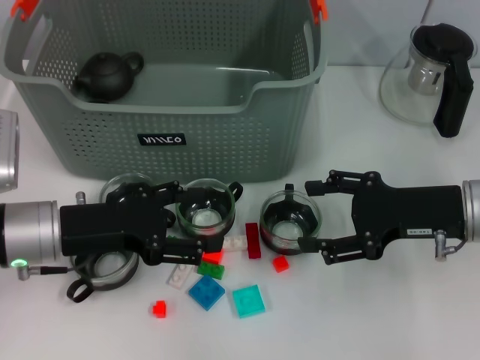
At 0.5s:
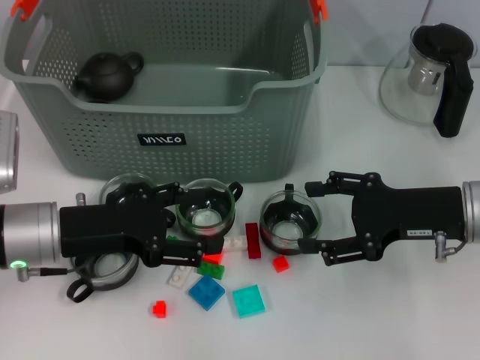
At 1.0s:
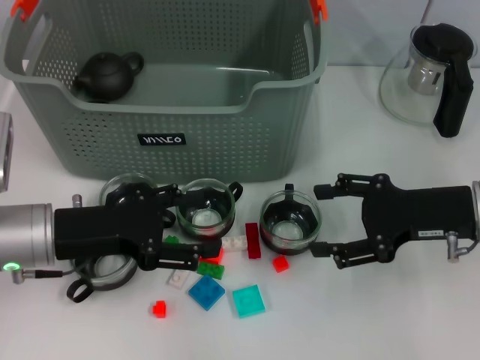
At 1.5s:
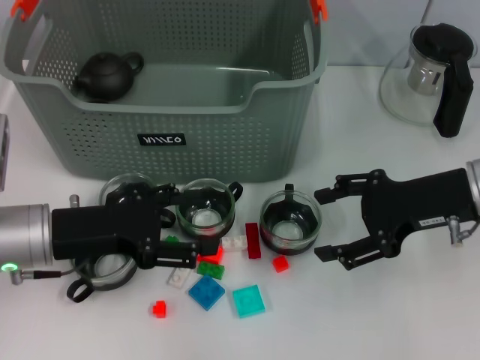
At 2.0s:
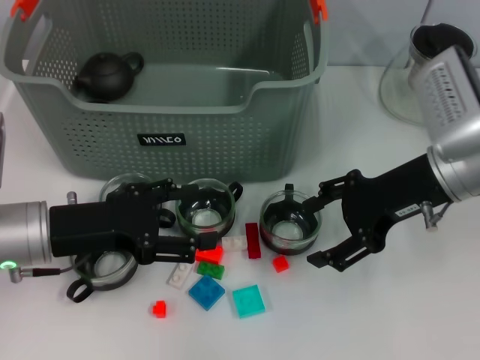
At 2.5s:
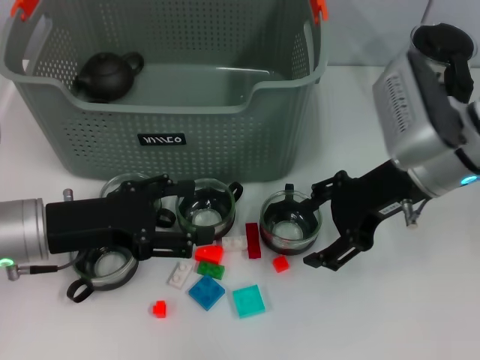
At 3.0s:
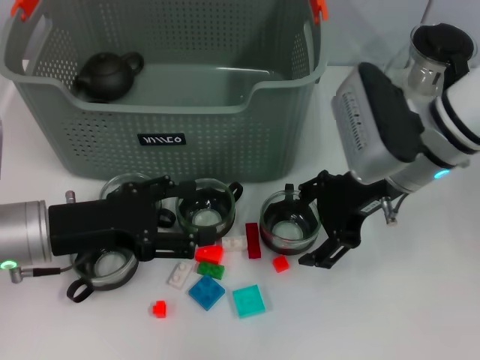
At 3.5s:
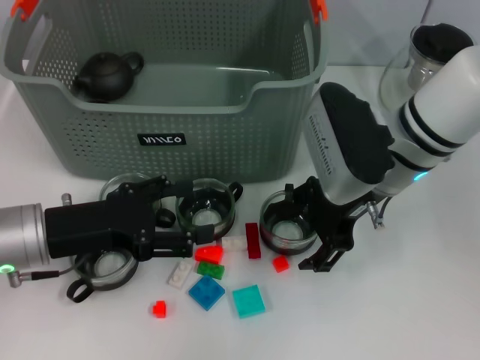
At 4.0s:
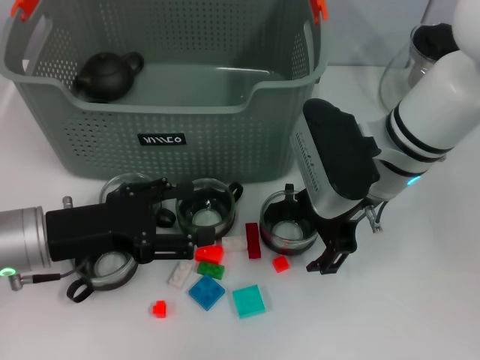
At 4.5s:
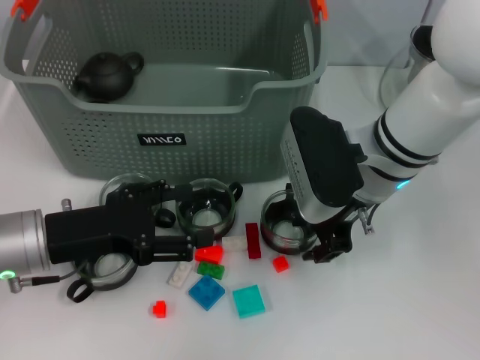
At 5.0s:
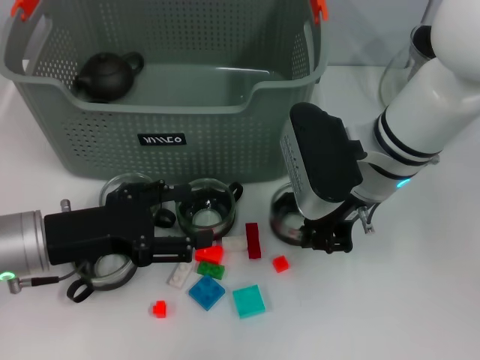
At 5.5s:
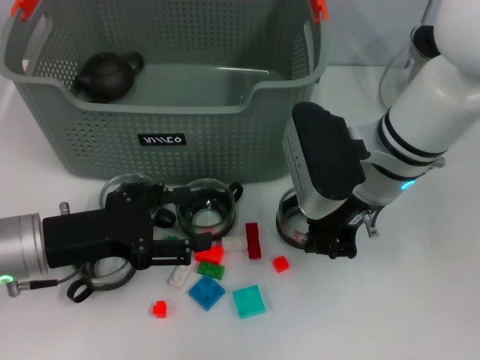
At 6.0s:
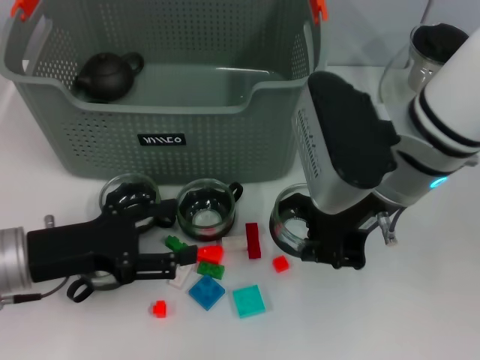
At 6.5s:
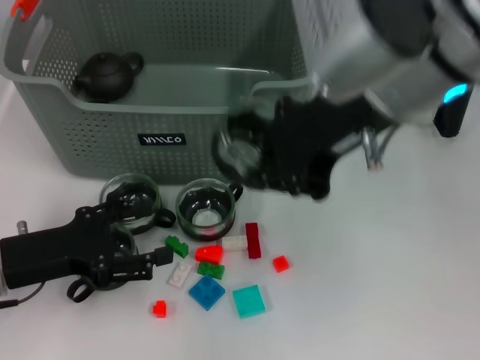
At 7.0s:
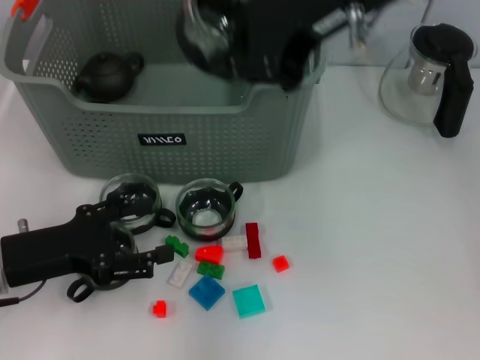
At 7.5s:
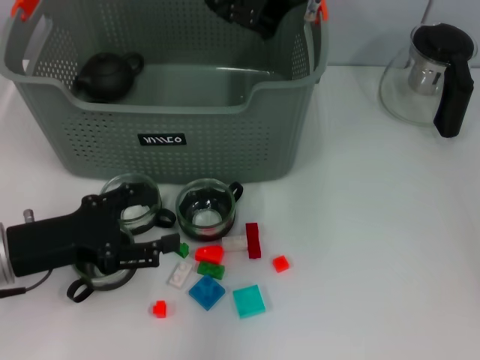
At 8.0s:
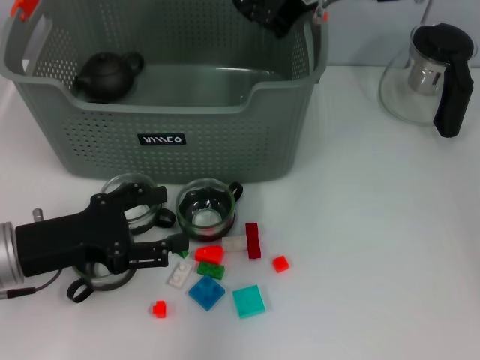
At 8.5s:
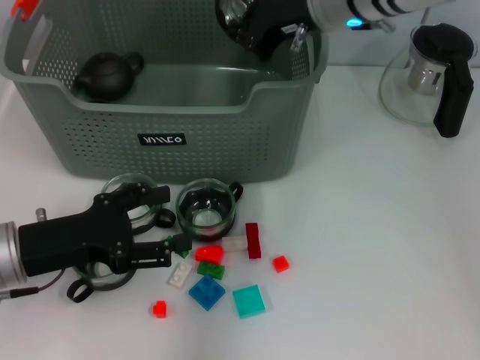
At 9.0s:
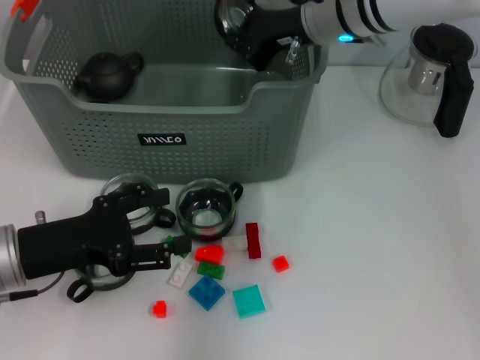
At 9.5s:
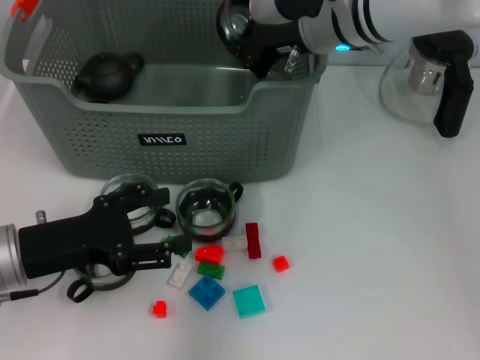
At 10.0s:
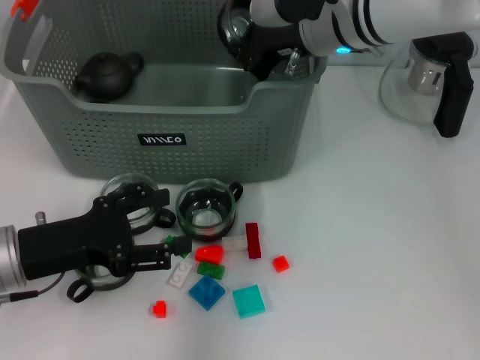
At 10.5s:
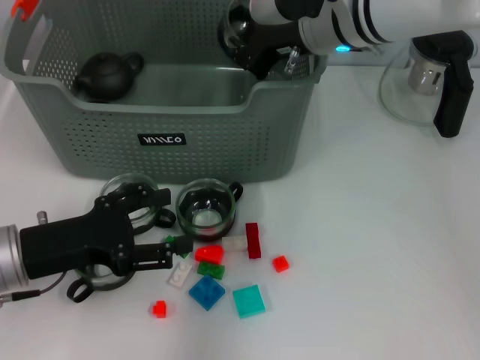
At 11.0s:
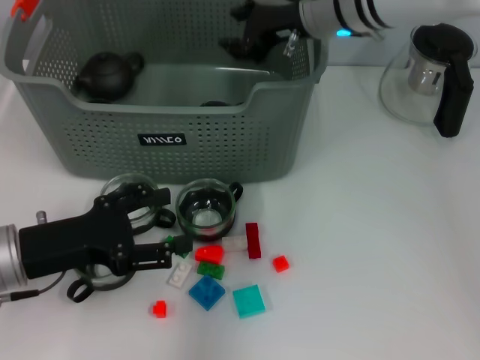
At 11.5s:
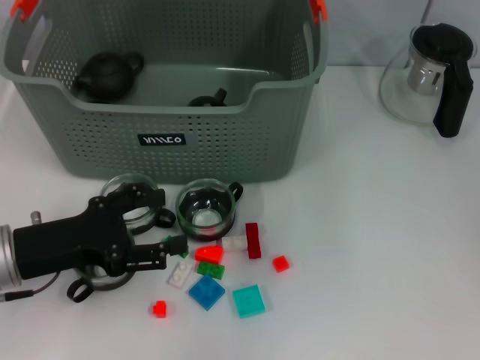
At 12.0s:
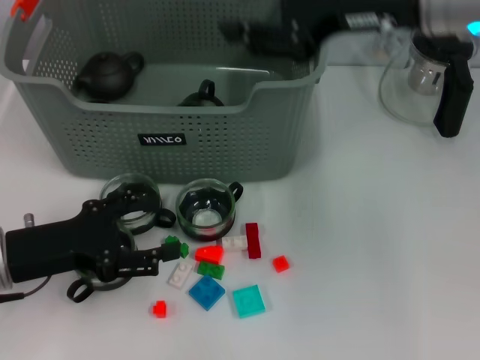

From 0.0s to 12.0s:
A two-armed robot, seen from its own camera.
Task of the whole recording: pick up the teacup on the table and place it into the storage bin, pick up the block on the table and place it into the storage bin.
Step, from 0.0s to 5.0s: Grasp the cup with right gripper.
Step, from 5.5s to 10.5s: Place the cup in the storage box with right gripper.
From 0.0s to 2.0s: The right gripper moves roughly 5 cm.
From 2.0s to 4.0s: The right gripper heads to the left, covering some 10 cm.
From 4.0s to 6.0s: The right gripper goes some 5 cm upward, and closes up.
From 6.0s to 8.0s: The right gripper goes about 15 cm forward and upward.
From 8.0s to 10.0s: The right gripper travels downward by some 5 cm.
From 10.0s to 12.0s: The right gripper moves backward, upward and to the right, some 15 cm, and opens.

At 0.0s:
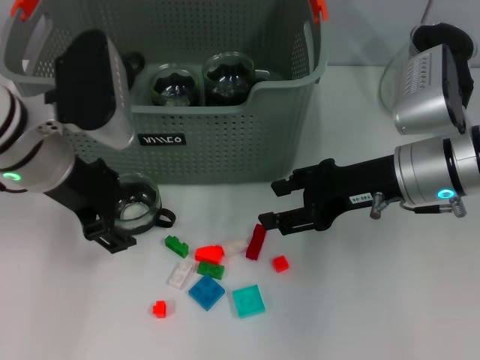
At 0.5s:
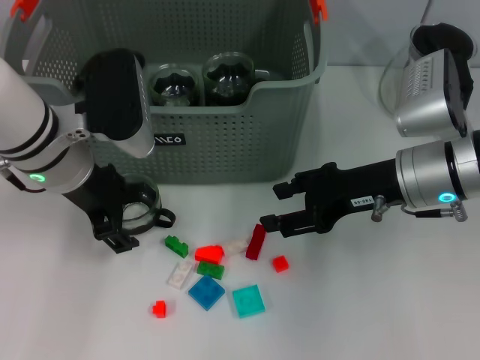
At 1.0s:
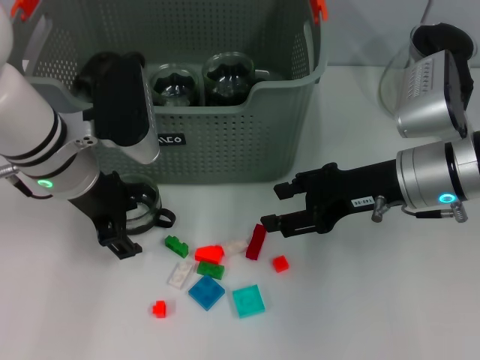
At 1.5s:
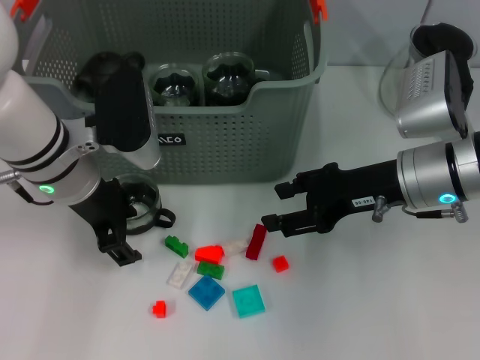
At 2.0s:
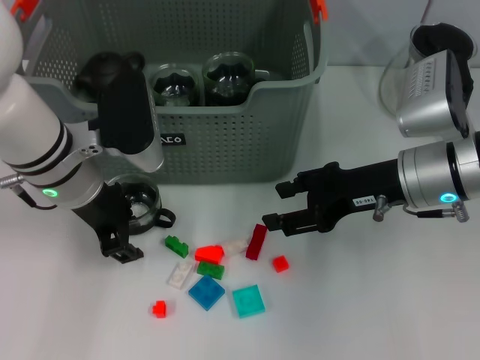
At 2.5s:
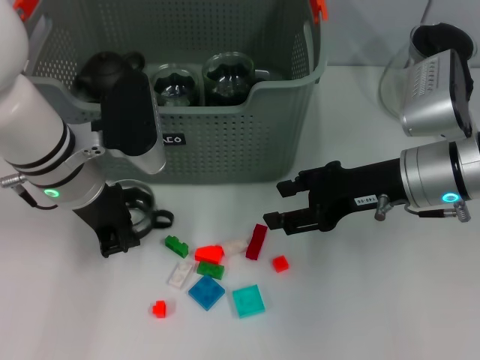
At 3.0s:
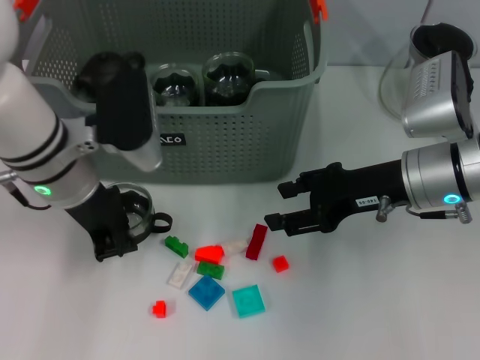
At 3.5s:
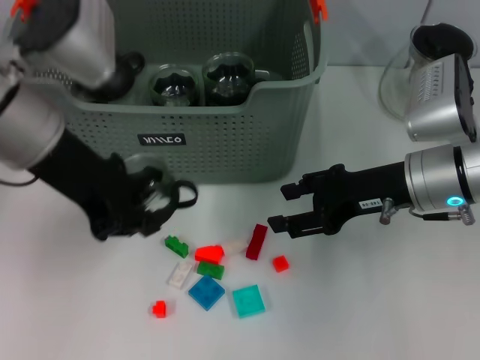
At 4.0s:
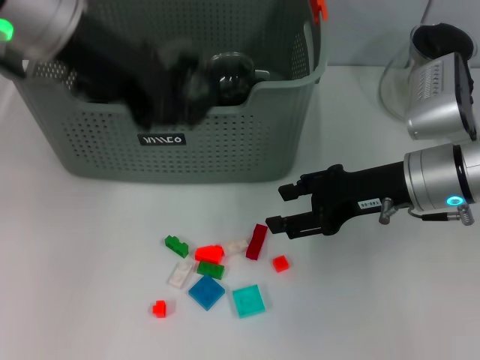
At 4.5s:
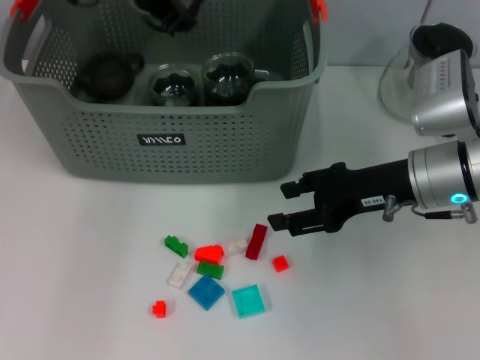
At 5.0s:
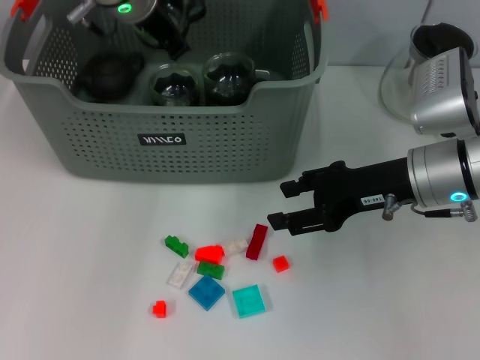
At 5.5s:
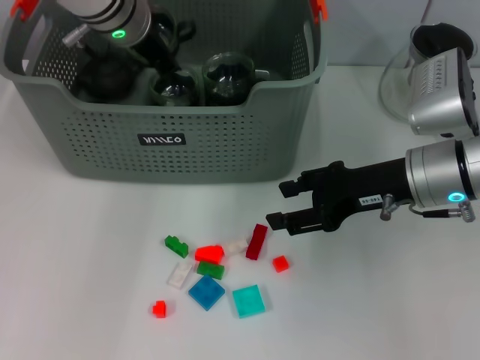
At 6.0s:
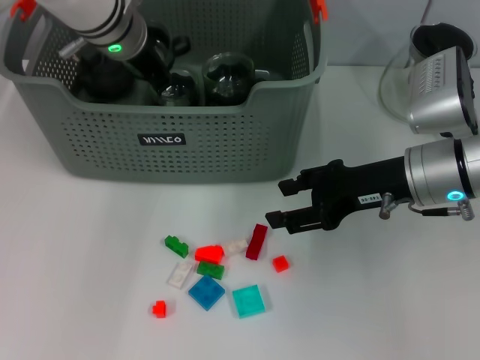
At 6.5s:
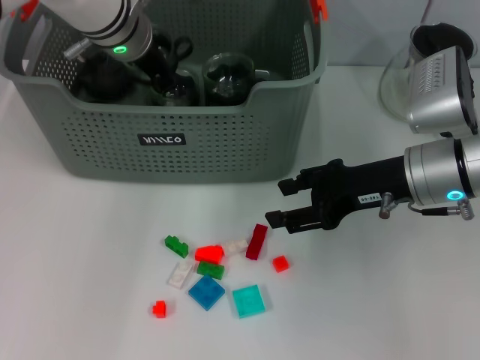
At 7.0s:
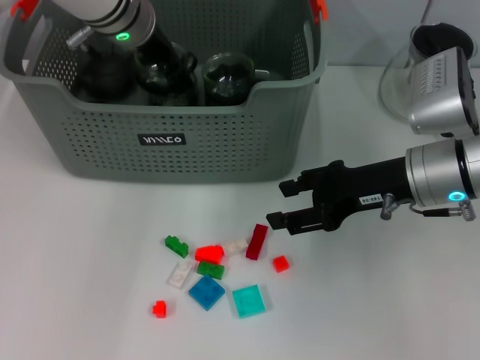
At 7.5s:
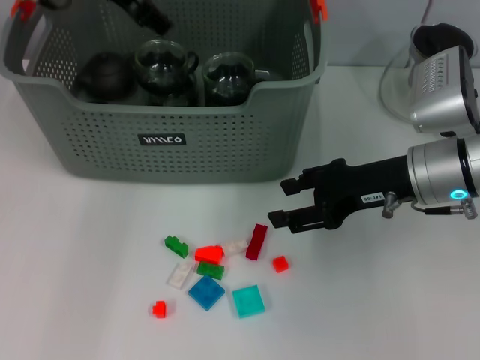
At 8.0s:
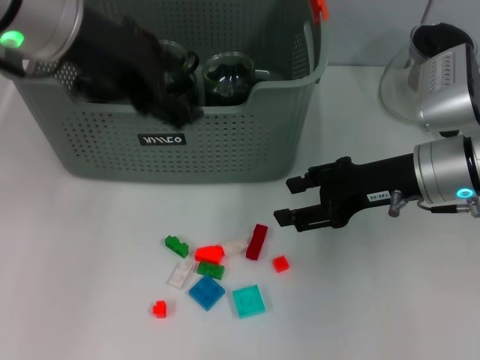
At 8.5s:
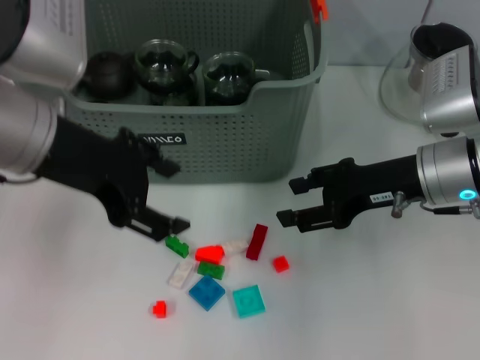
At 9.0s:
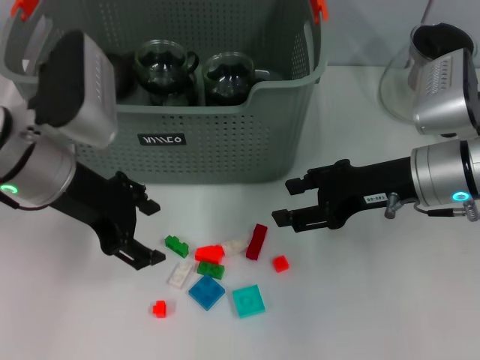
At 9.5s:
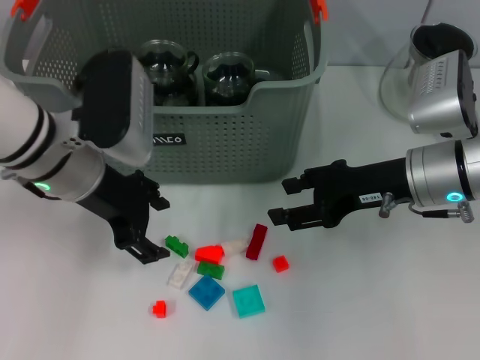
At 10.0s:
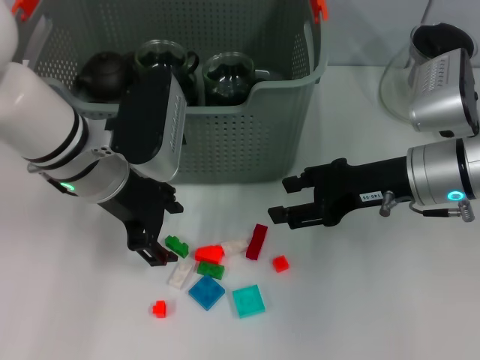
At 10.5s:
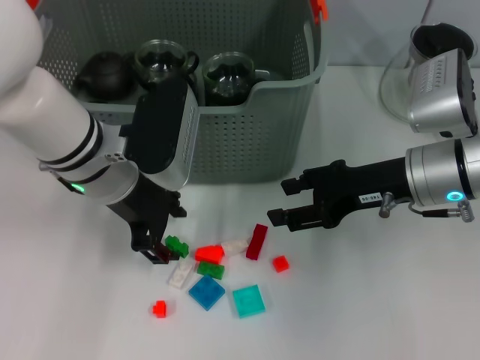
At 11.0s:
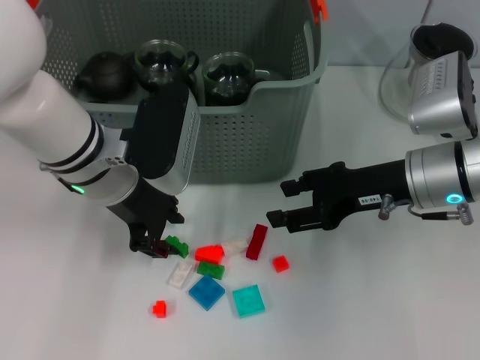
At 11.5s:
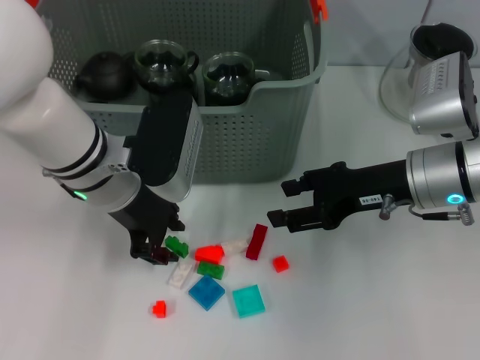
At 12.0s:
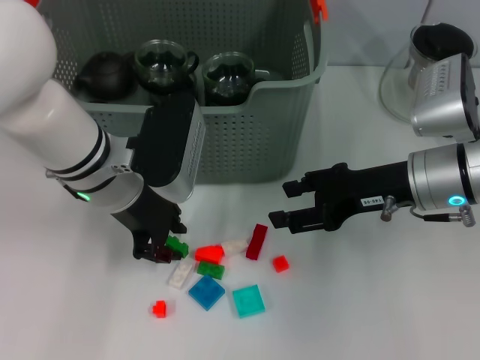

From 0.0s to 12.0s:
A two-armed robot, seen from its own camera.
Task of the whole recording: pick up the teacup on the table and place it into the storage bin, pick up the block on the table and place it into the storage bin.
Step, from 0.0s to 2.5s: Grasp the cup with left gripper.
Step, from 3.0s to 7.0s: Place the cup in the storage box with left gripper.
From 0.0s to 2.0s: The left gripper changes place by some 5 cm.
From 2.0s to 4.0s: The left gripper heads upward, covering some 15 cm, and closes its fingers.
From 4.0s to 6.0s: The left gripper moves forward and downward, some 15 cm.
From 6.0s to 8.0s: The left gripper travels backward and upward by about 15 cm, and opens.
From 8.0s to 10.0s: The left gripper moves downward, about 15 cm.
From 10.0s to 12.0s: The left gripper closes up.

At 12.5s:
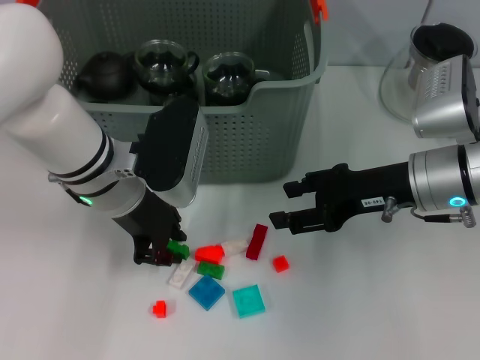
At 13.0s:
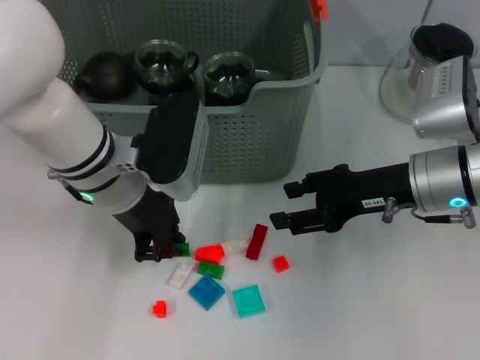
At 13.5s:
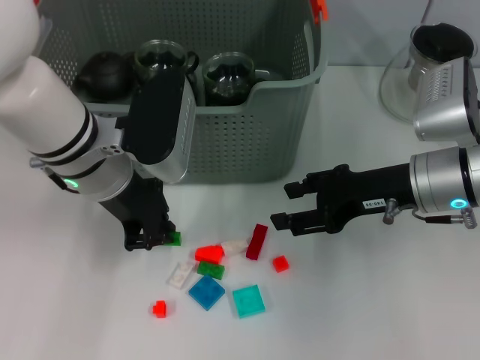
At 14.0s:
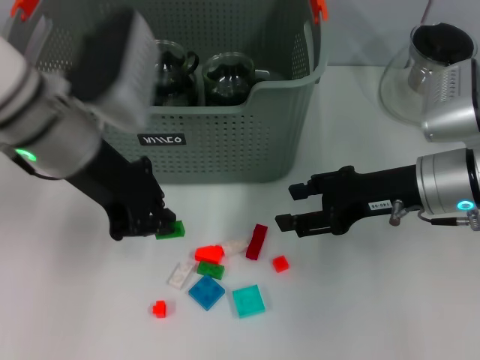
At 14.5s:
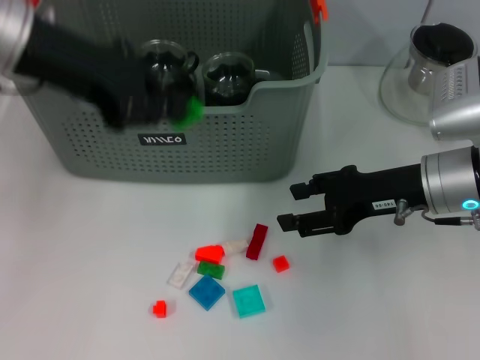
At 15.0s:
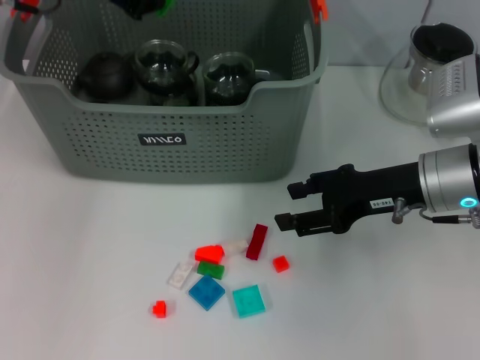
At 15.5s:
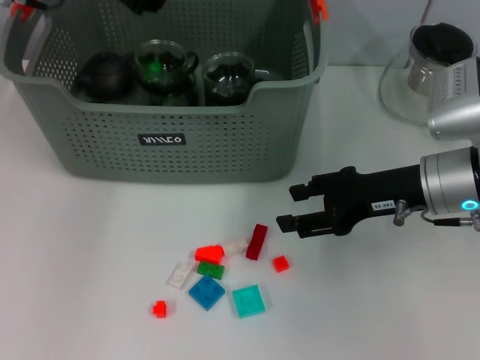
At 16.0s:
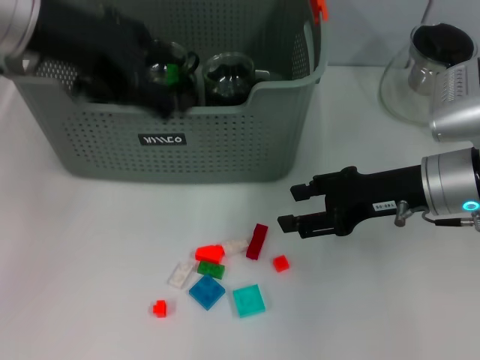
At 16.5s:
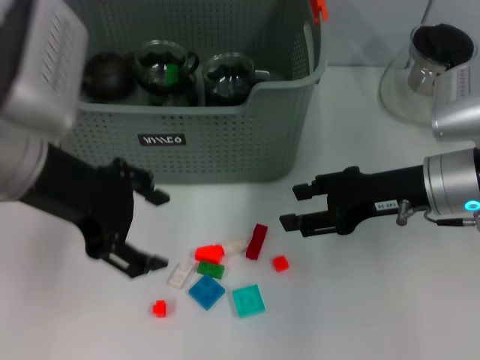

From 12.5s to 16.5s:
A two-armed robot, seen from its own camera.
Task of the whole recording: pick up the teacup on the table and place it into the storage bin, pick up the block on the table and place it into the storage bin.
Step, from 13.5s to 15.5s: Place the green block in the storage box with left gripper.
From 12.5s to 14.5s: The left gripper shifts roughly 15 cm upward and to the left.
From 14.5s to 16.5s: The left gripper moves backward and downward, some 10 cm, and opens.
